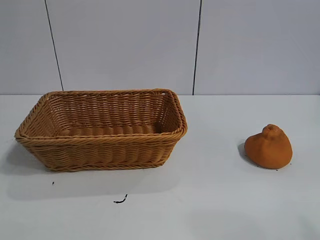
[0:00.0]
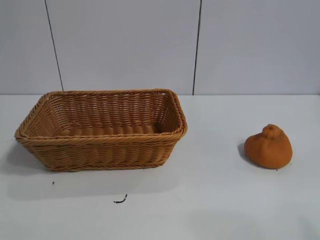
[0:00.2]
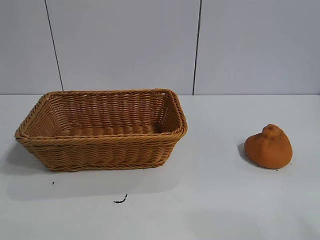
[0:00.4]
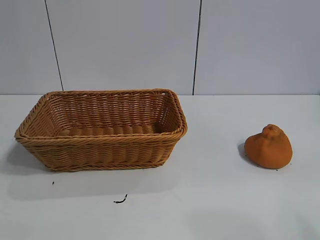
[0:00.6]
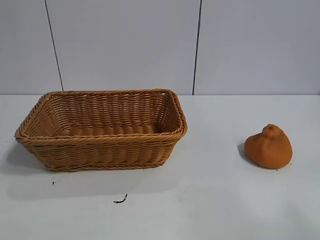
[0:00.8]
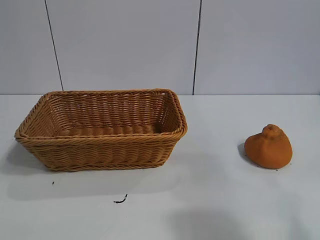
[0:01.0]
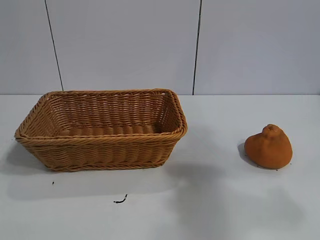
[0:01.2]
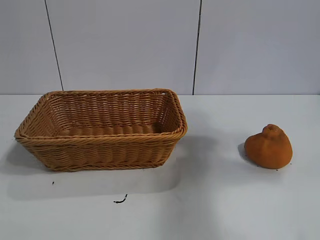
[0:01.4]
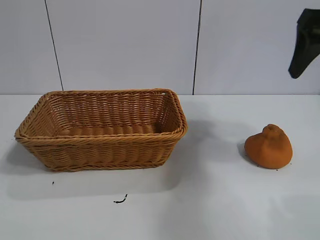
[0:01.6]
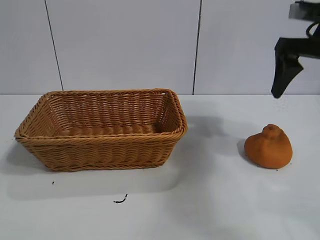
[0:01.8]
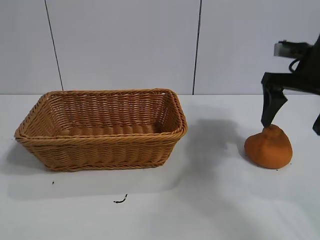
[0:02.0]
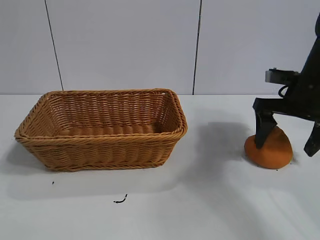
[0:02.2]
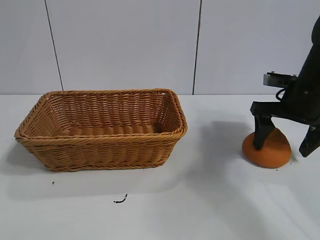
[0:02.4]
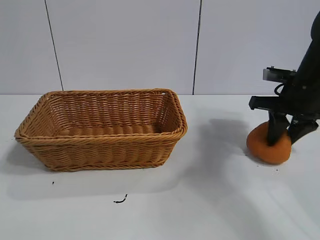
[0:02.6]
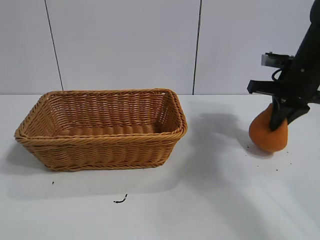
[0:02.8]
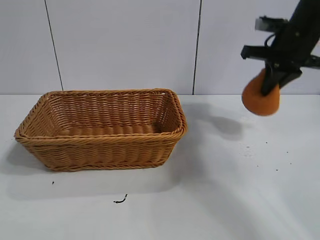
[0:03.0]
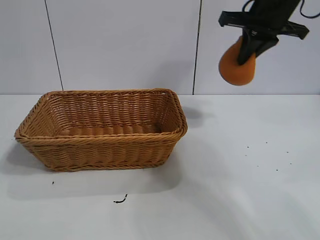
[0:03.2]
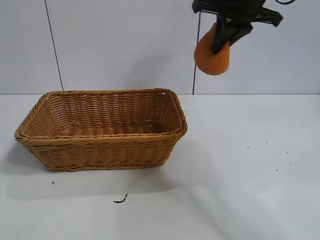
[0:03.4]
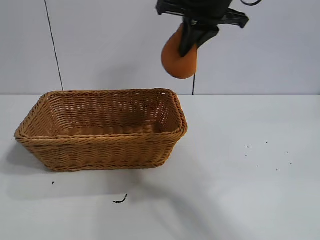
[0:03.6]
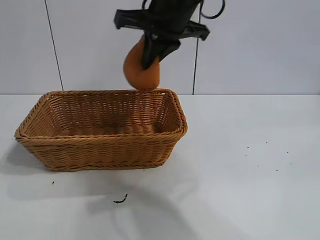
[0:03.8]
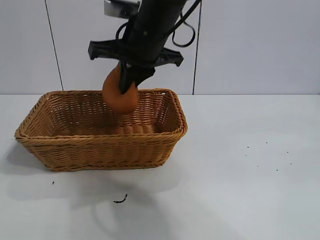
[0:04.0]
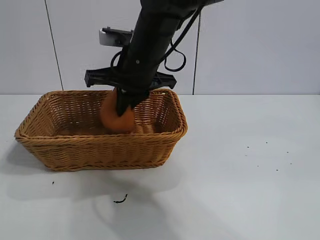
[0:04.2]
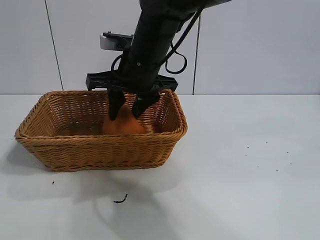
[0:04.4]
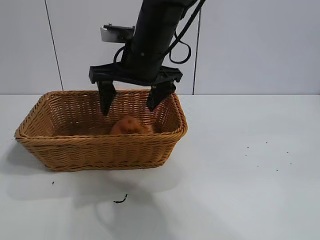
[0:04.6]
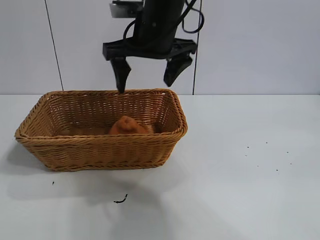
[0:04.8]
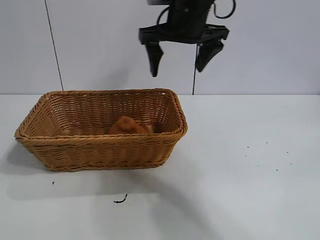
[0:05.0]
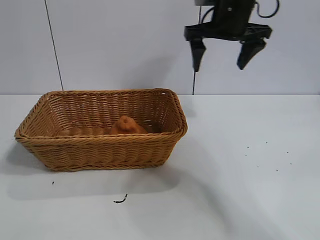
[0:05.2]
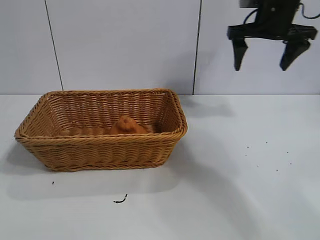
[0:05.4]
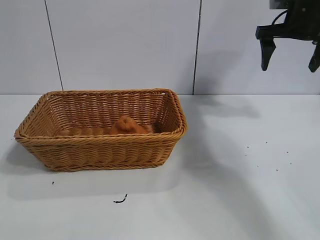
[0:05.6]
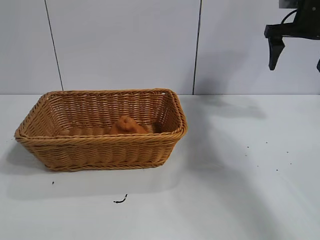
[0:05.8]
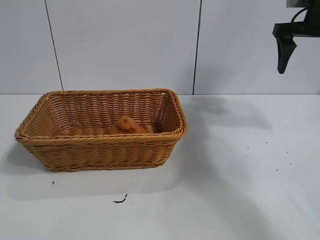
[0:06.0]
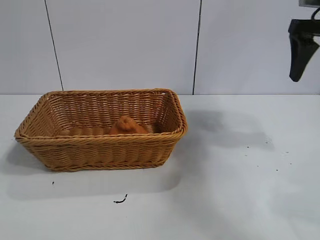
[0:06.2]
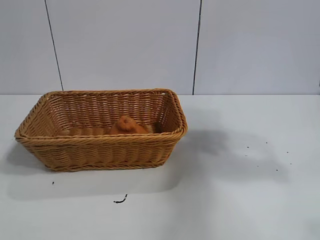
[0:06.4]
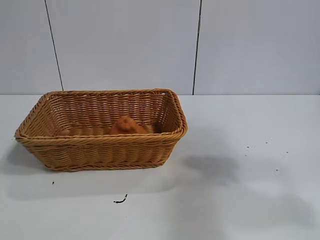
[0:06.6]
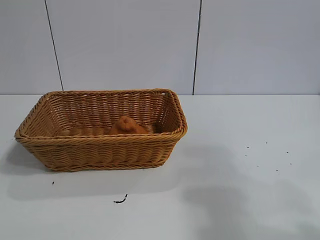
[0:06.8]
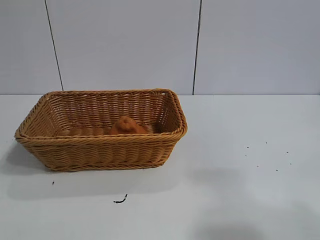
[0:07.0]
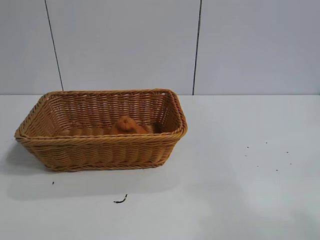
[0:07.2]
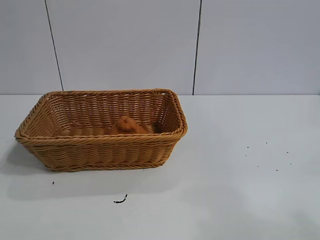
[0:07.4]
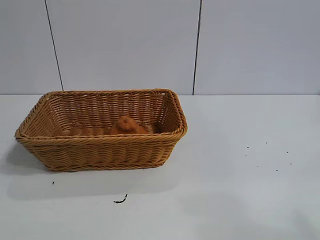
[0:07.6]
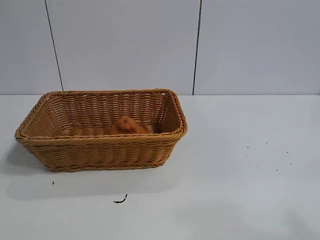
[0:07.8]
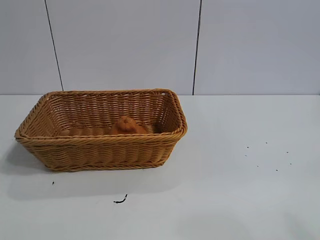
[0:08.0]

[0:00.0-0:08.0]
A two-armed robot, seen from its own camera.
Task of the whole recording: pick up the orange and put it into the basket.
Step, 0:00.0 to 0:02.6: Grasp the orange with right gripper.
Step, 0:02.8 to 0:04.4: Place the orange in the basket with right gripper.
